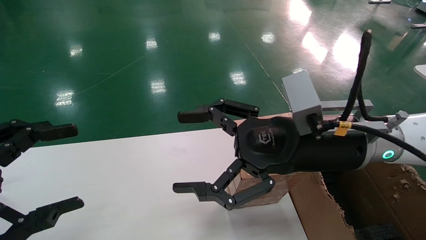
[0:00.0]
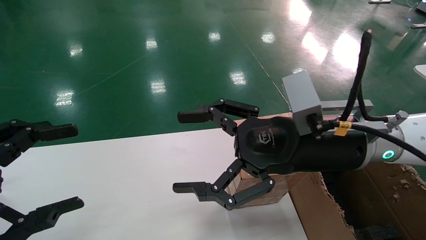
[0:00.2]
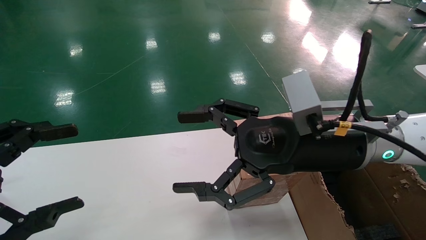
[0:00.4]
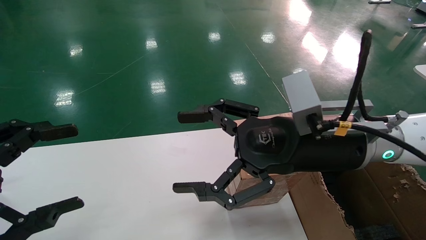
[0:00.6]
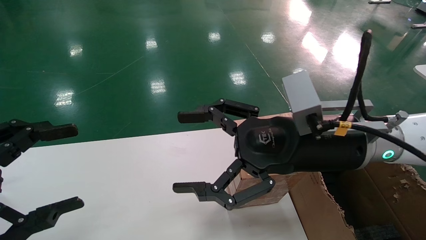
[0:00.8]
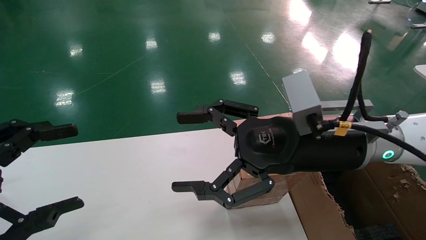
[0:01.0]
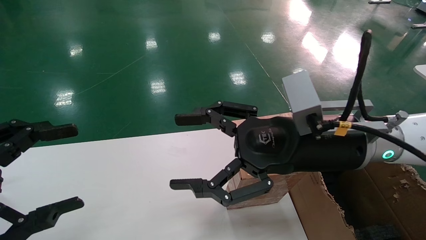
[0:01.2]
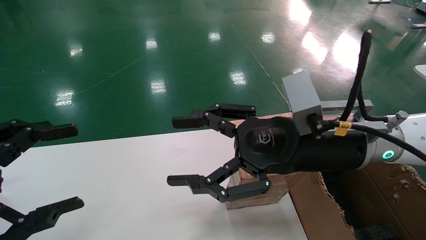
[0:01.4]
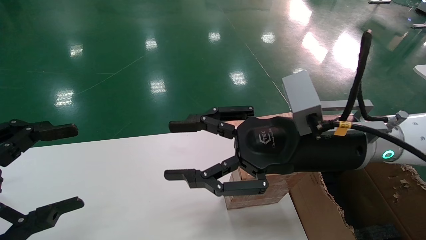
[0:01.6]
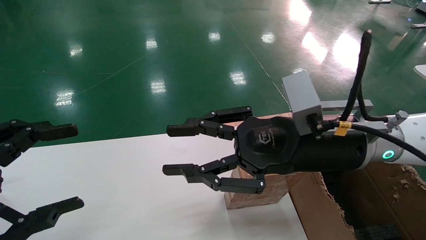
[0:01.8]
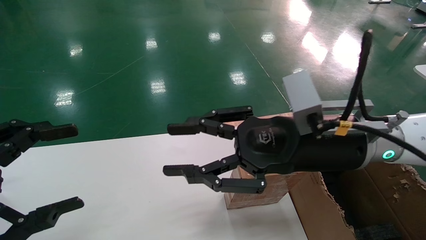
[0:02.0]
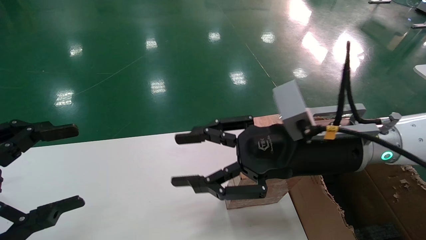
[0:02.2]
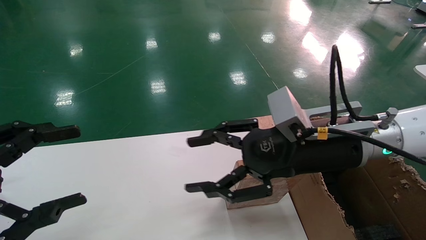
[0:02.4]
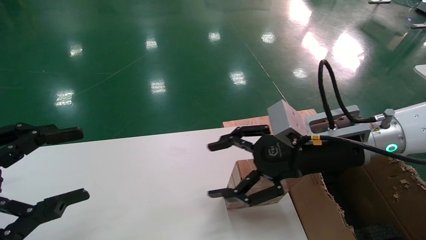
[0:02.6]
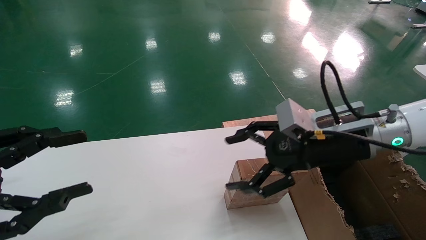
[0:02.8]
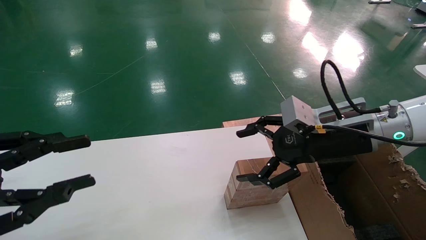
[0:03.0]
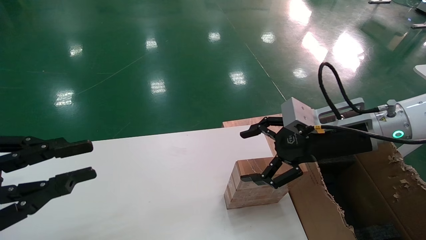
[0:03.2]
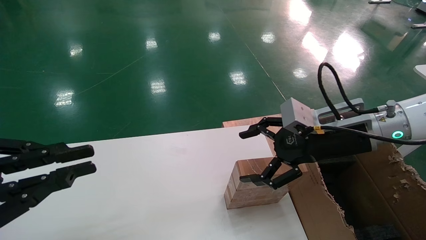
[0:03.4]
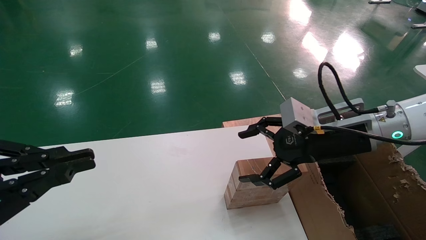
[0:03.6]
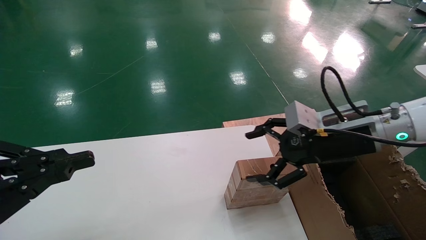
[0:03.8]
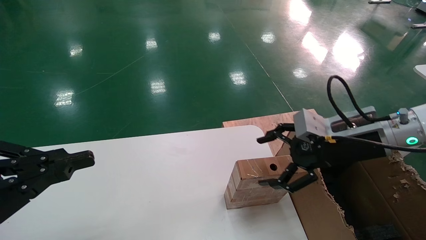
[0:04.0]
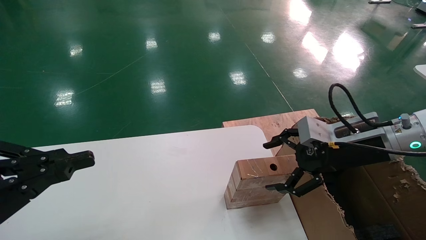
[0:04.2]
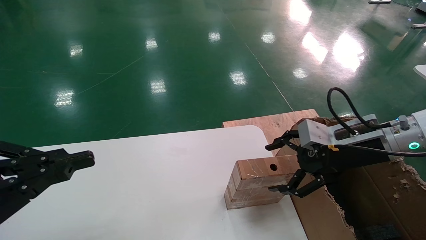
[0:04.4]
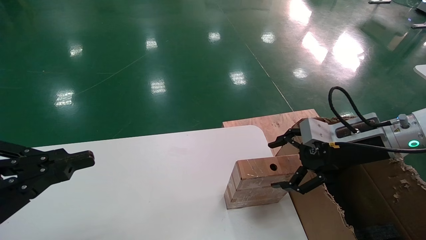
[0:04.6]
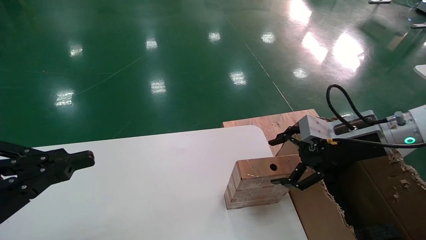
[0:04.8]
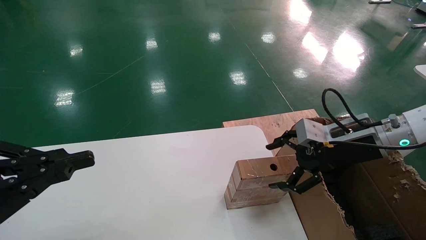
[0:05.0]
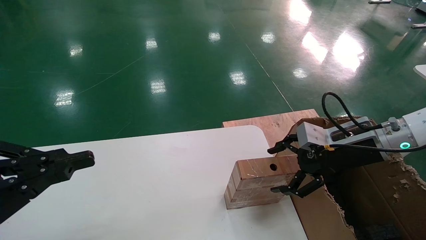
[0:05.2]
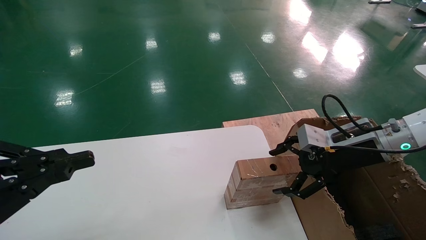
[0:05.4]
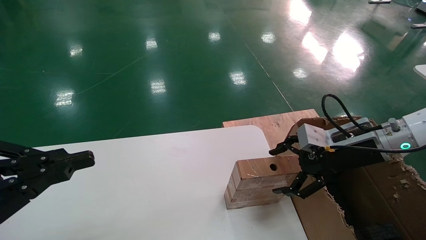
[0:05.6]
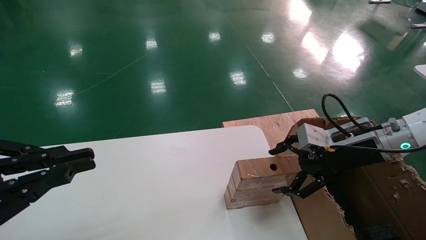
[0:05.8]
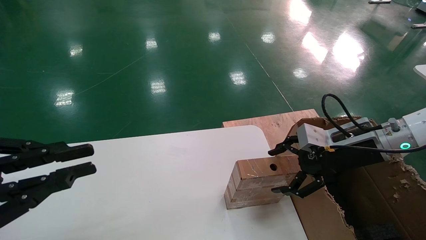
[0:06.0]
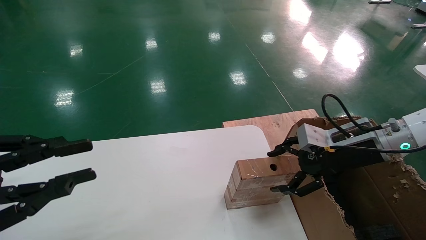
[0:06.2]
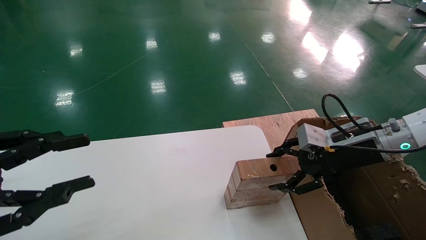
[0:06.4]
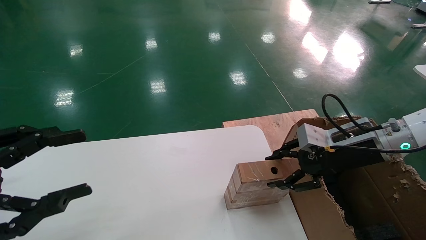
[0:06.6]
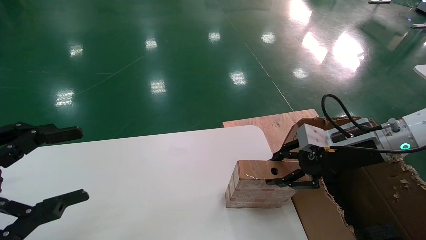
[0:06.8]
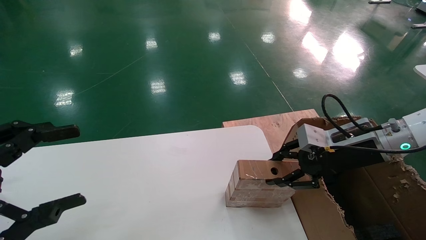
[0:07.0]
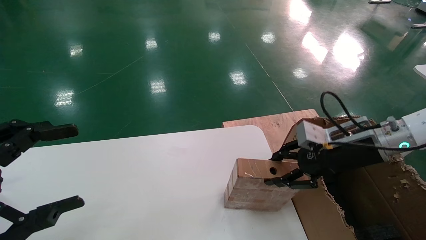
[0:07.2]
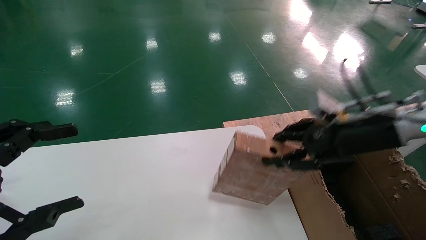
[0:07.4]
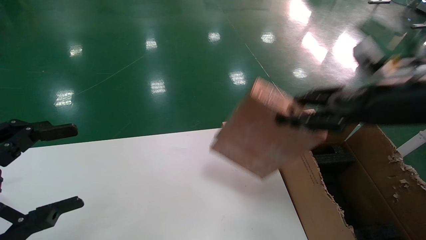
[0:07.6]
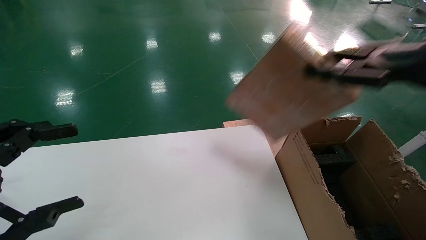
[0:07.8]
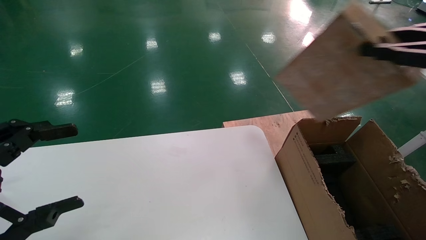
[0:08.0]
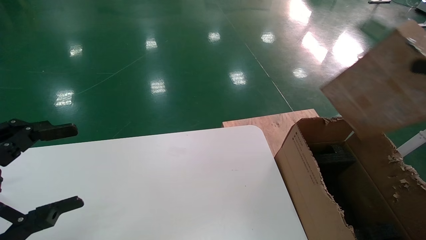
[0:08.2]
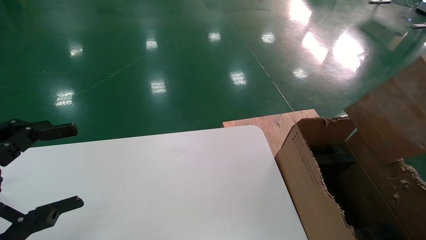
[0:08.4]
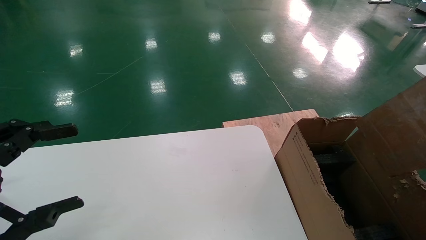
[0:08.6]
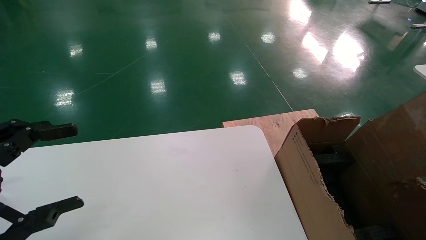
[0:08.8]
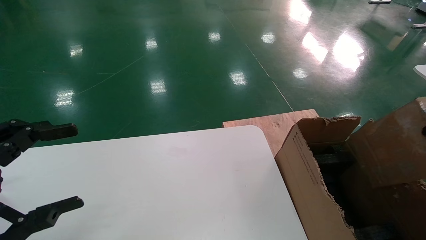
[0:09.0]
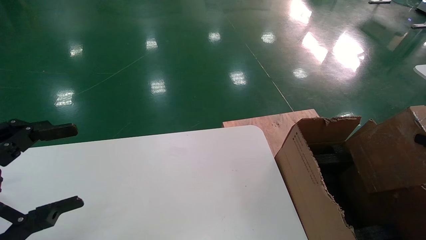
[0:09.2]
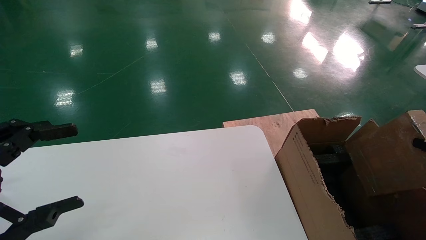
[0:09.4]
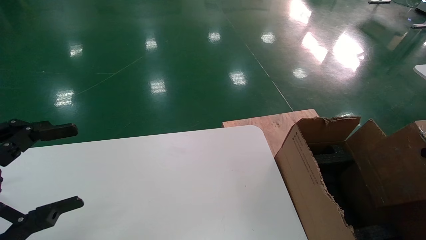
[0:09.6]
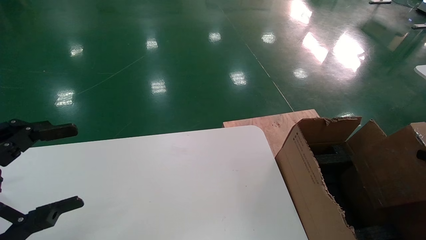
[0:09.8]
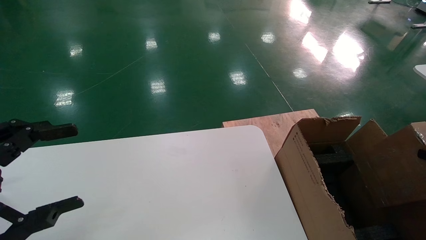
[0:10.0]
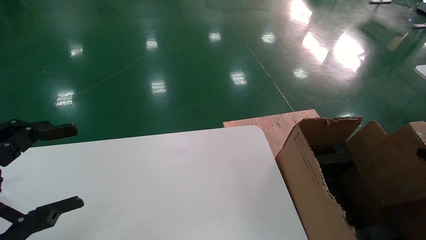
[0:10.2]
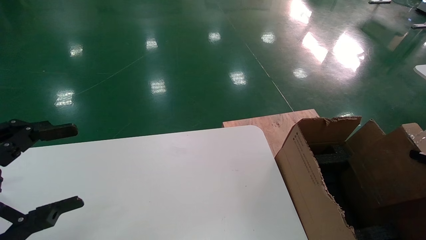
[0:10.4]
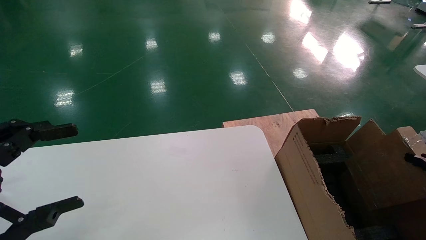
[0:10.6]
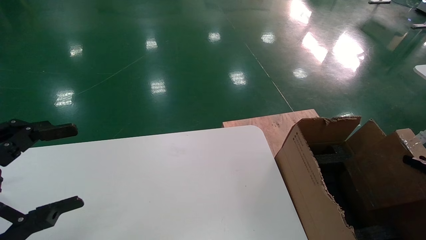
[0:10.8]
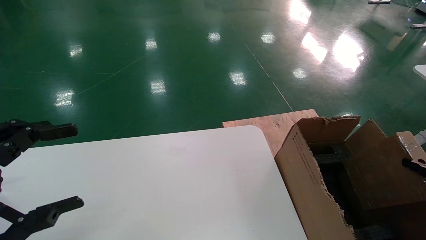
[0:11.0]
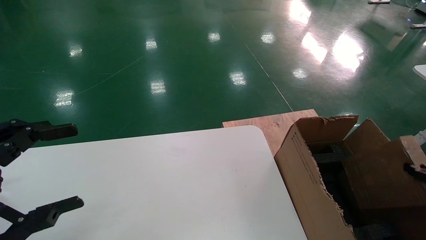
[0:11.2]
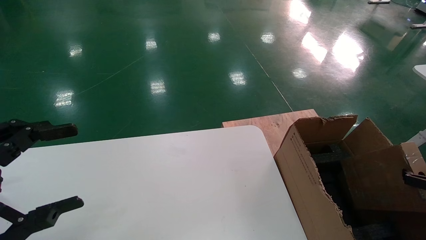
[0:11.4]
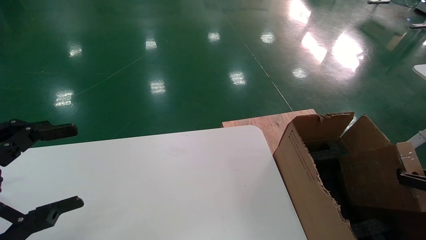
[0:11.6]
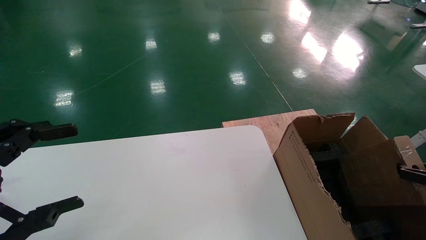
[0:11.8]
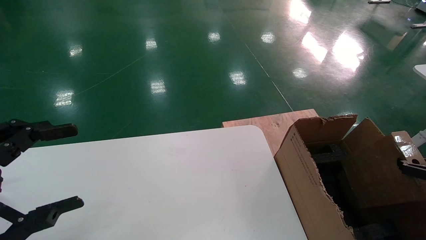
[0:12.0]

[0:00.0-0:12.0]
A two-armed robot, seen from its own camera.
Task of the whole recording: put the box on the table into the big box.
Step, 0:02.4 to 0:07.0: Pick up the mouse and the power cord paper box.
0:00.0 to 0:01.6: The right gripper closes.
0:01.6 to 0:03.0: The left gripper closes its fingers, while the right gripper shifts approximately 10 cm to the right.
0:03.0 to 0:04.4: The left gripper closes up; the right gripper is displaced to the right by roughly 5 cm.
0:04.4 to 0:06.0: The grippers stay close to where they were, moving slightly.
0:06.0 to 0:07.6: The left gripper opens up; the right gripper goes some 15 cm upward and backward, and closes.
0:07.6 to 0:09.0: The right gripper moves to the right, backward and downward, about 25 cm.
0:09.0 to 0:10.4: The right gripper is displaced downward by roughly 5 cm.
0:10.4 to 0:12.0: The grippers move only a little.

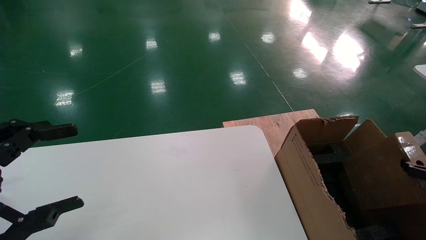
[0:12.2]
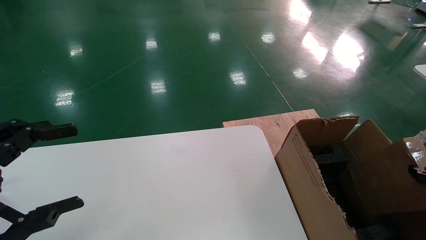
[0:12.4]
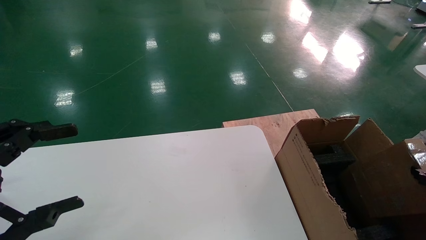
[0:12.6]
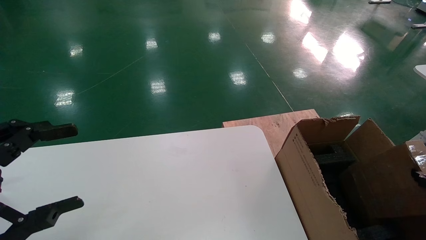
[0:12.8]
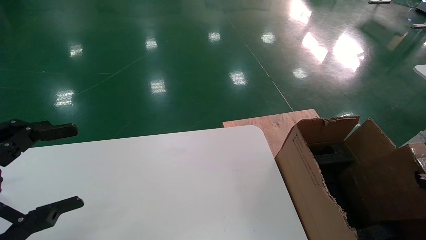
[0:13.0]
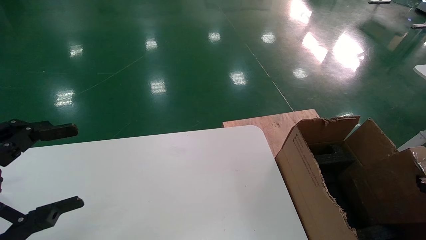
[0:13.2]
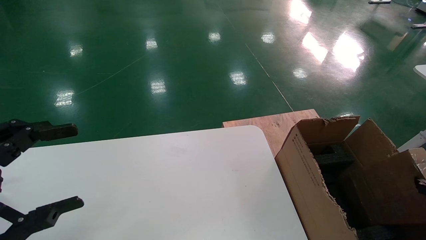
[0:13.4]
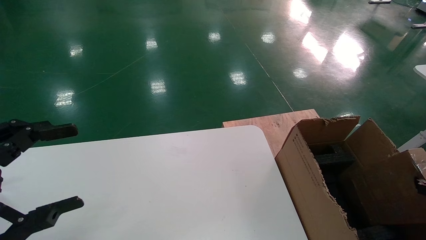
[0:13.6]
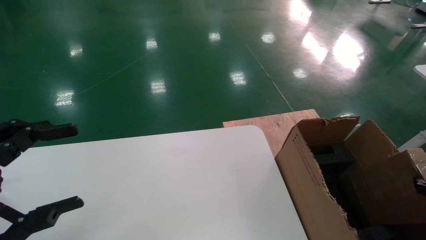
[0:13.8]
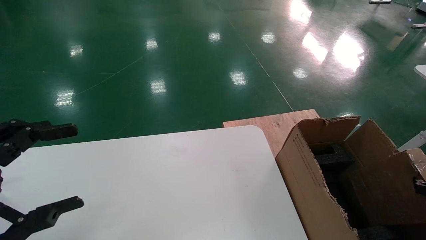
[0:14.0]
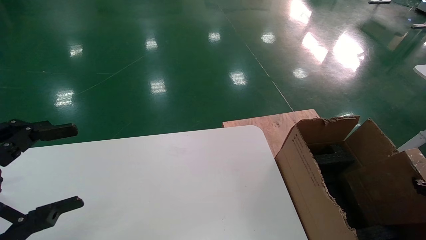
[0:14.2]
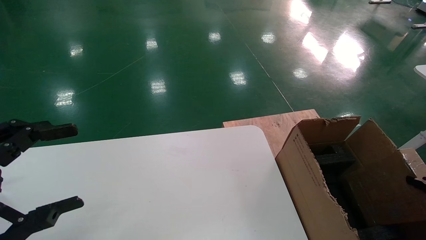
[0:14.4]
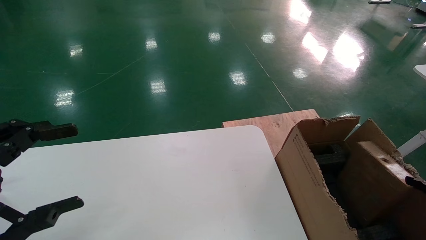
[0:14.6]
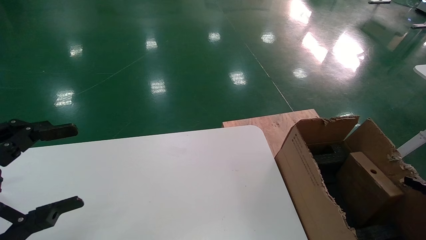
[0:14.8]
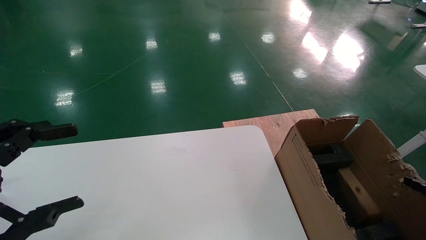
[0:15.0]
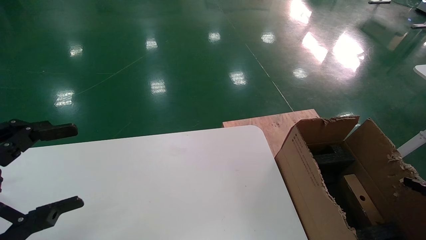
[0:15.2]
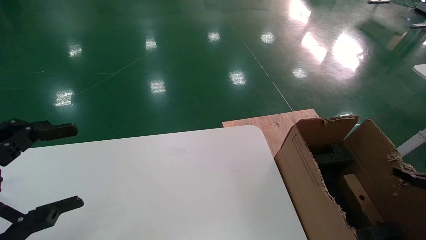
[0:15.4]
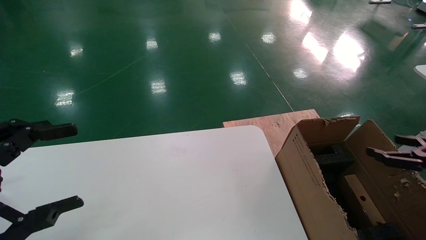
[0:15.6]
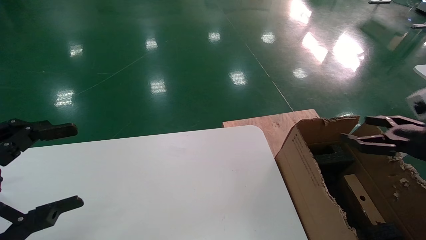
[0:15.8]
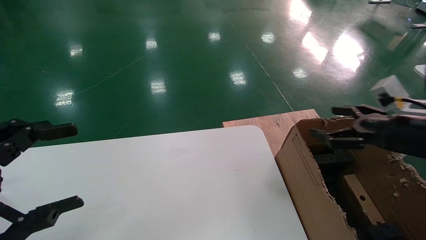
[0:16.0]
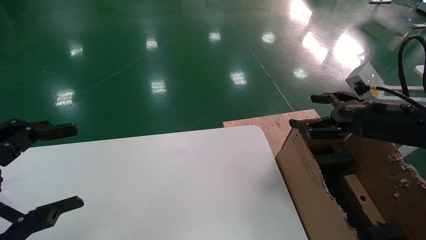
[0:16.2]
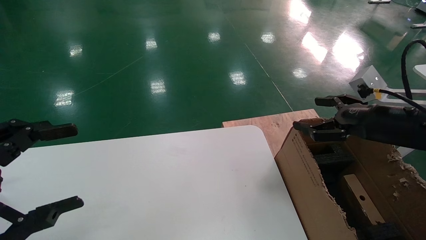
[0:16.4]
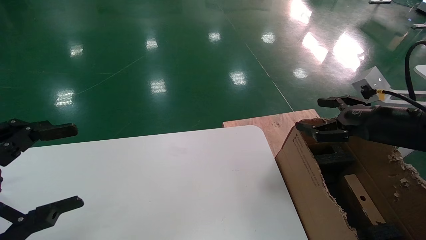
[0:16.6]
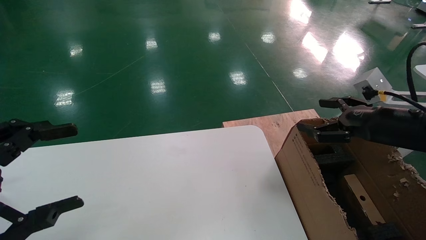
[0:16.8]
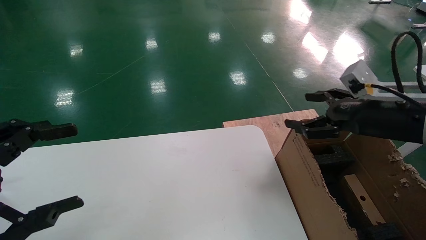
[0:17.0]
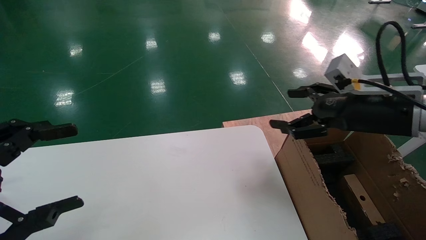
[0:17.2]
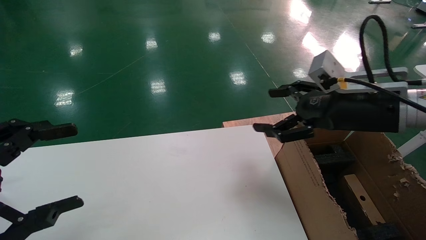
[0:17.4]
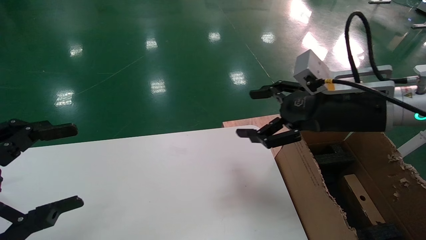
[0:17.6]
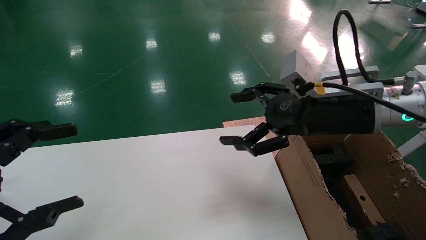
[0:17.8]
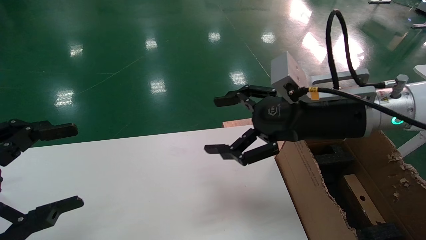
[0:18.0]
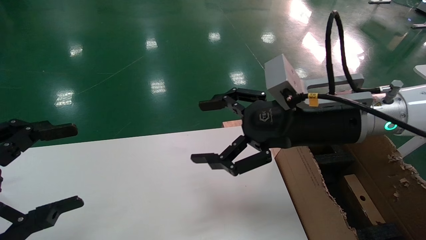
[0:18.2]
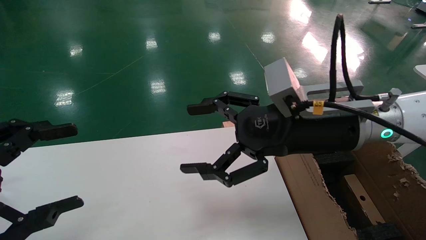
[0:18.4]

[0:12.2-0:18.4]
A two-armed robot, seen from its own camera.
Task of the whole recording: put the box on the table into the big box.
Step, 0:12.2 to 0:14.8: Place the mouse and the power cord paper box into the container.
0:13.8 to 0:15.4: The right gripper changes place by some 5 cm, and opens.
0:15.4 to 0:16.8: The right gripper shifts about 20 cm to the left, upward and forward.
0:16.8 to 0:18.4: The right gripper is displaced to the left by some 20 cm.
